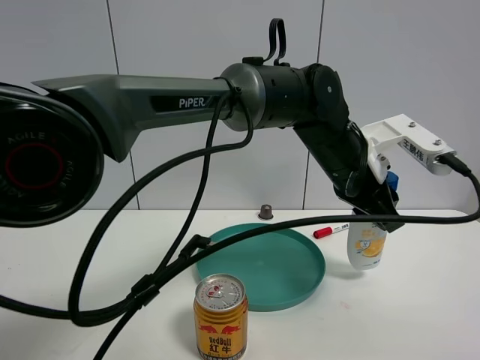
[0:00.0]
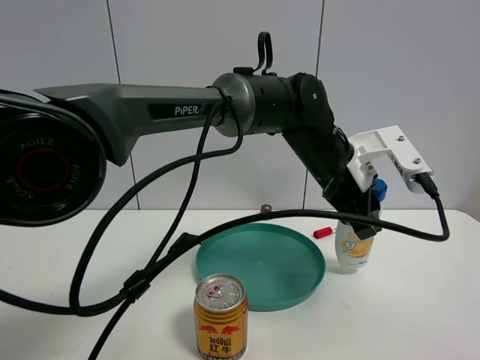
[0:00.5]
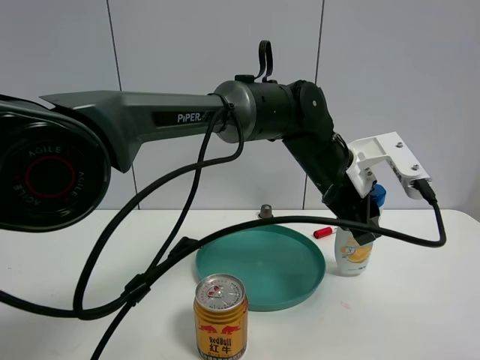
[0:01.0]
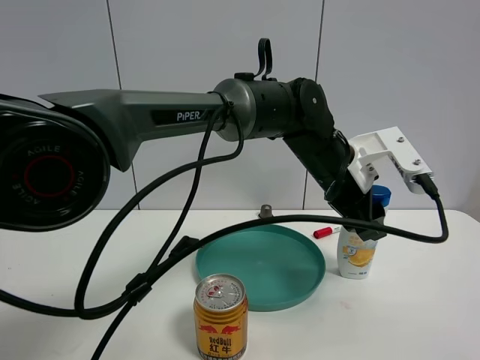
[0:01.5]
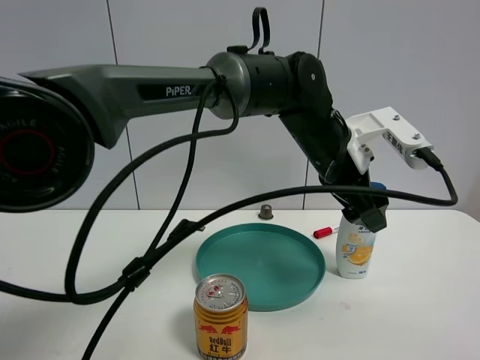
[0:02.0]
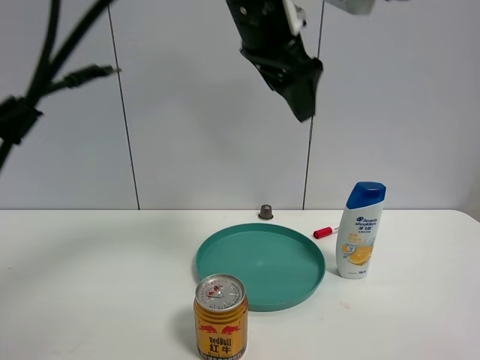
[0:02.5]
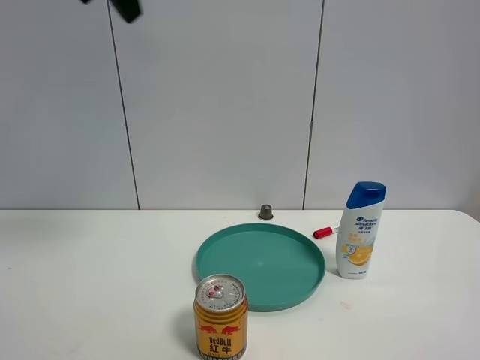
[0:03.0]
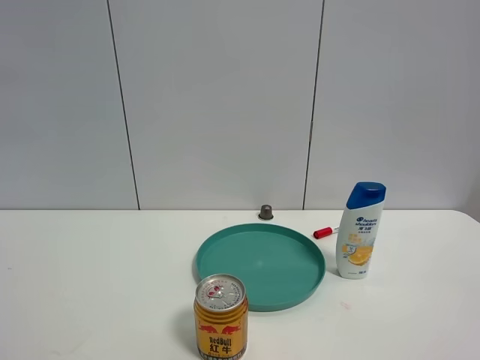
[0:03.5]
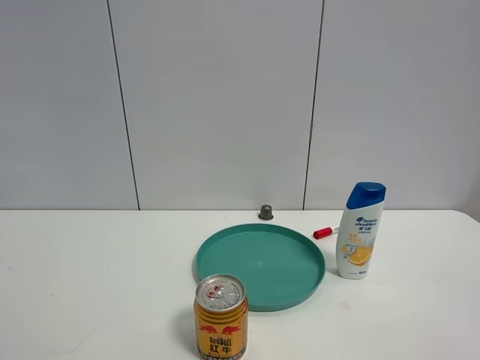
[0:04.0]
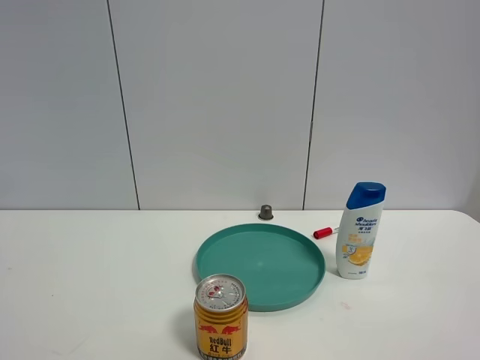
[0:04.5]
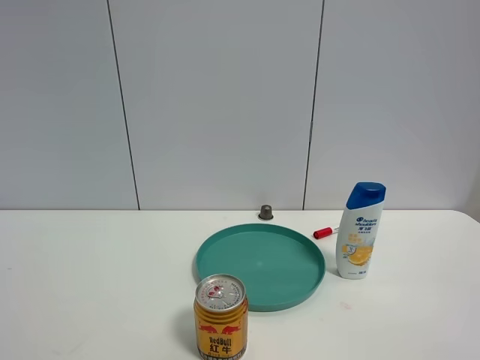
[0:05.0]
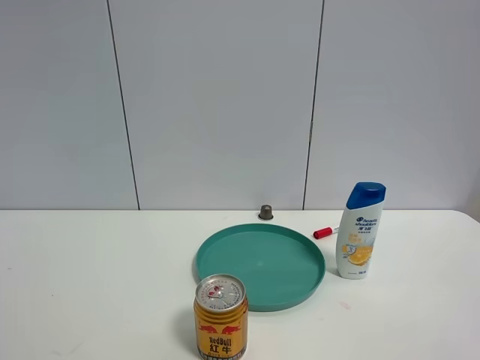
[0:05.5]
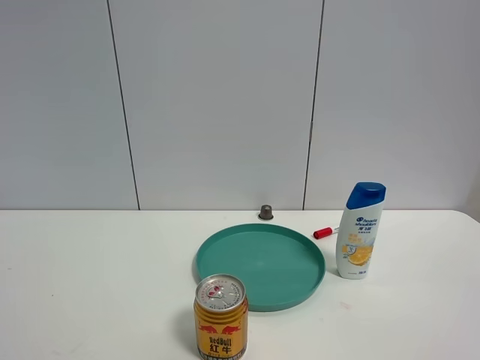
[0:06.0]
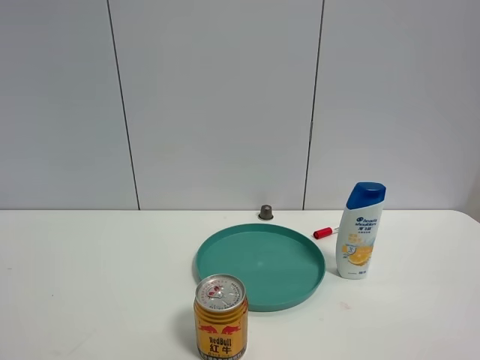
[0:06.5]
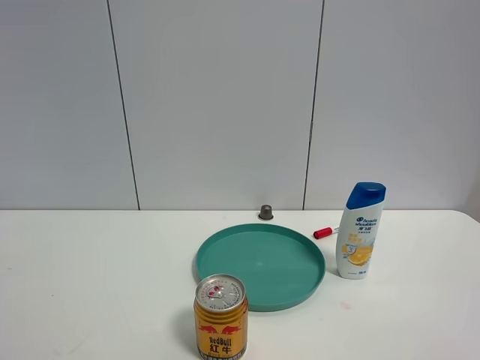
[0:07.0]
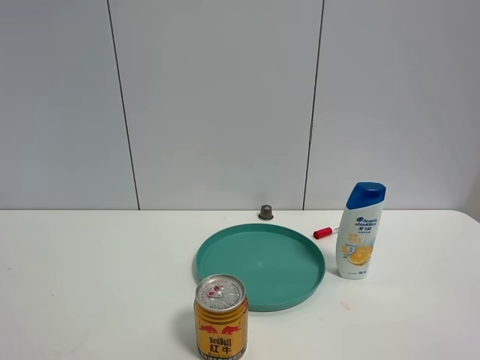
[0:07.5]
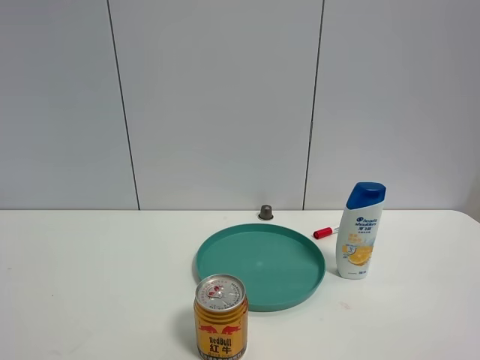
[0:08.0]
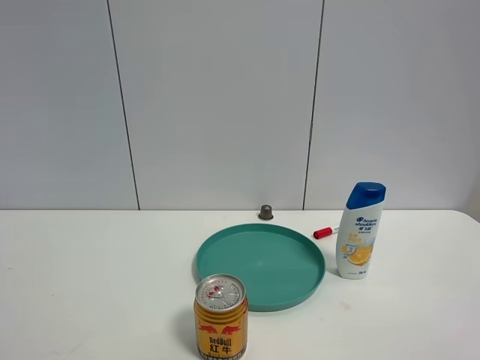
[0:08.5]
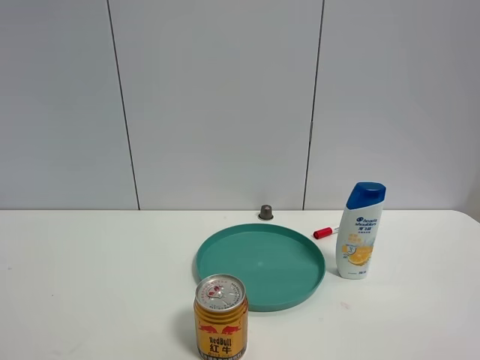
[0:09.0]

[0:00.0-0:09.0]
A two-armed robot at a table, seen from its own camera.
Task of the whole recording: the gripper move the object.
0:00.0 to 0:02.0: The left gripper opens.
0:02.0 to 0:04.5: The left gripper moves to the left and backward, about 60 cm.
0:07.0 to 0:09.0: Both grippers stay about where they are.

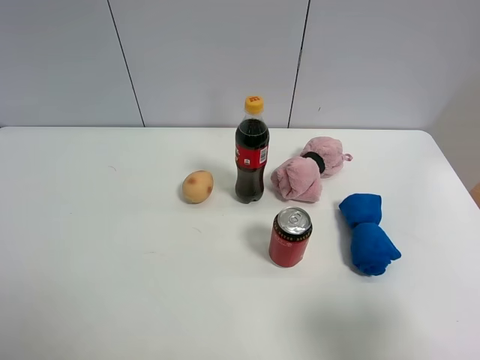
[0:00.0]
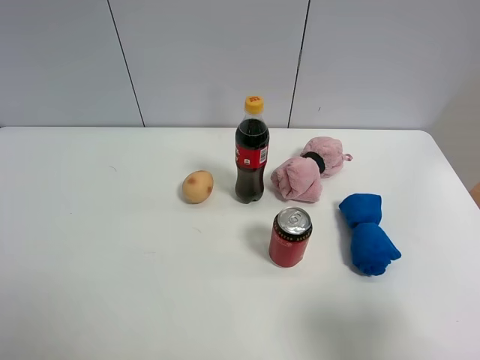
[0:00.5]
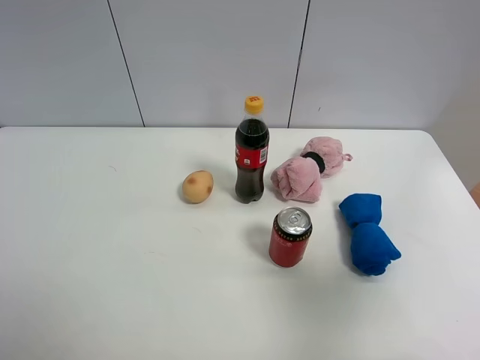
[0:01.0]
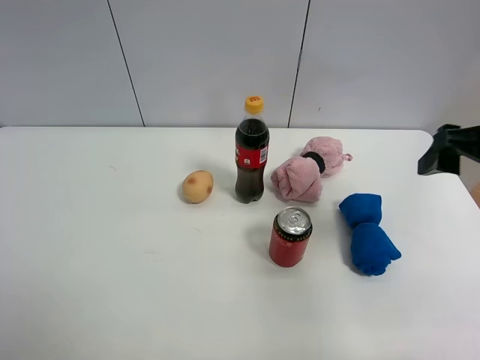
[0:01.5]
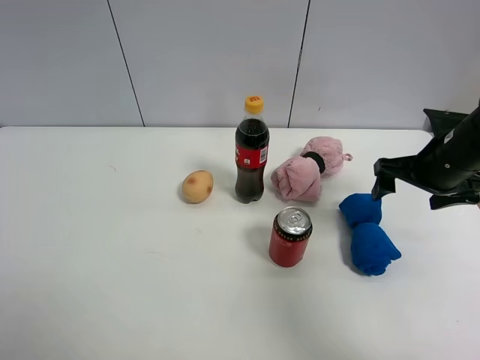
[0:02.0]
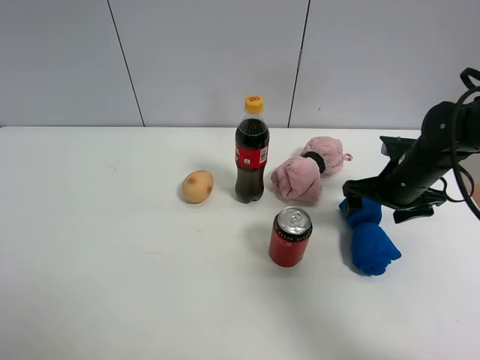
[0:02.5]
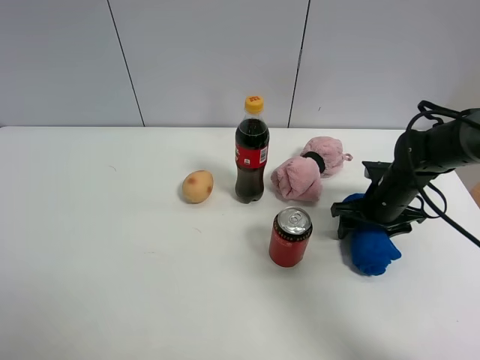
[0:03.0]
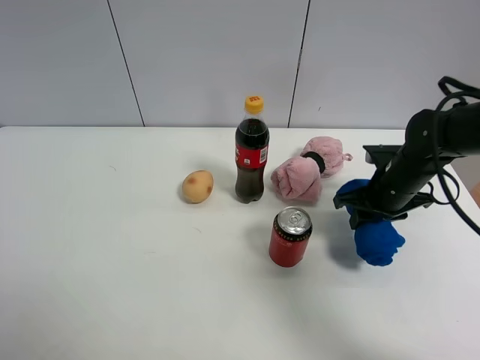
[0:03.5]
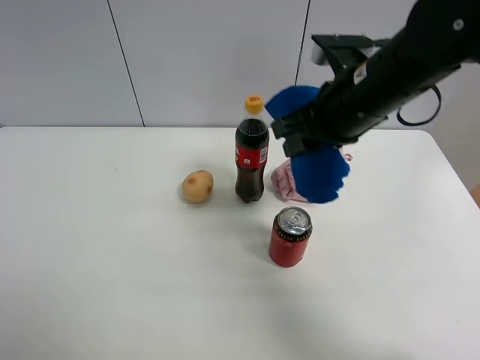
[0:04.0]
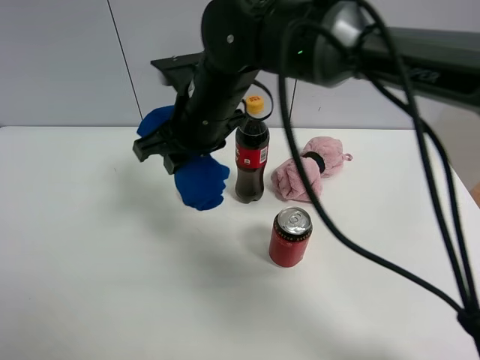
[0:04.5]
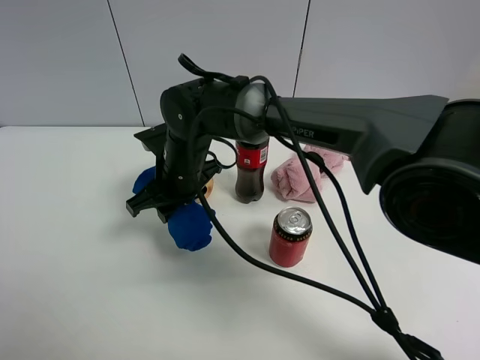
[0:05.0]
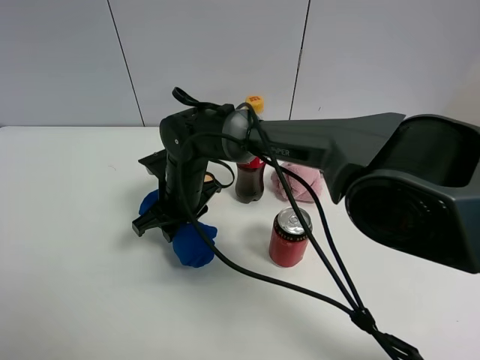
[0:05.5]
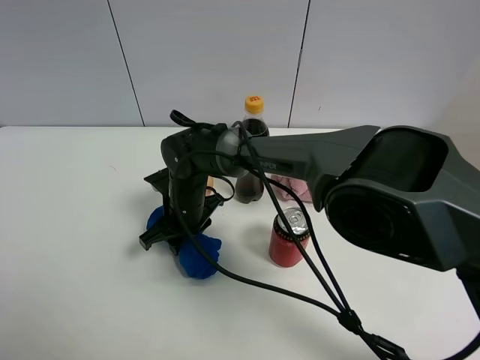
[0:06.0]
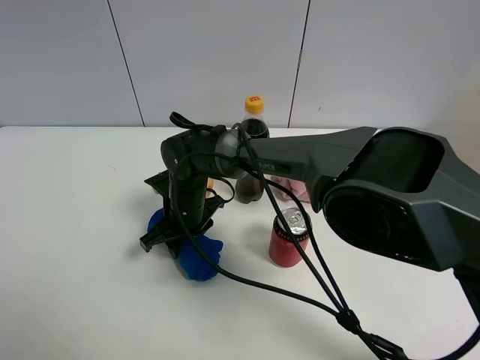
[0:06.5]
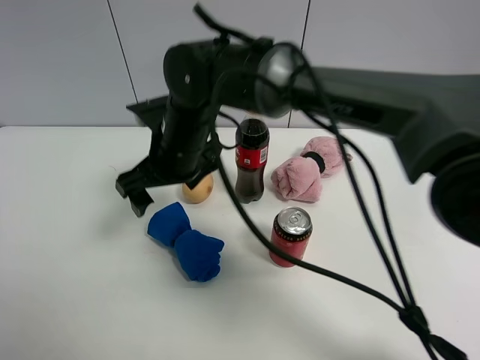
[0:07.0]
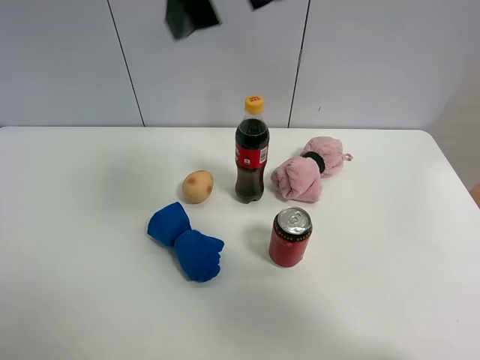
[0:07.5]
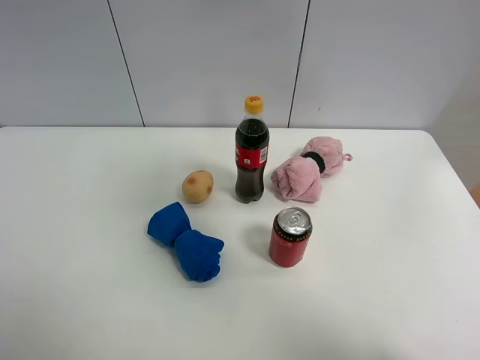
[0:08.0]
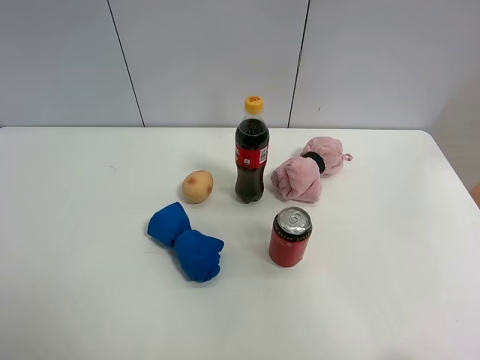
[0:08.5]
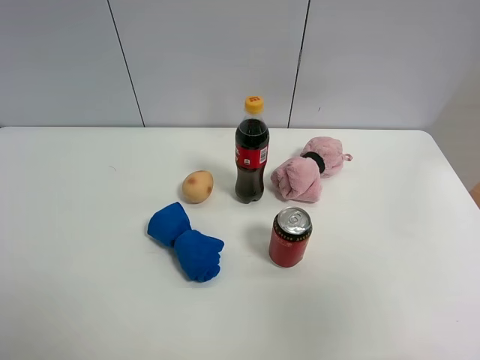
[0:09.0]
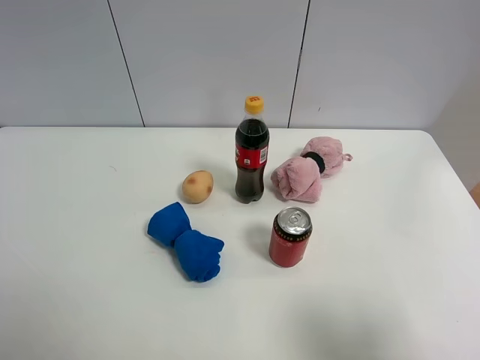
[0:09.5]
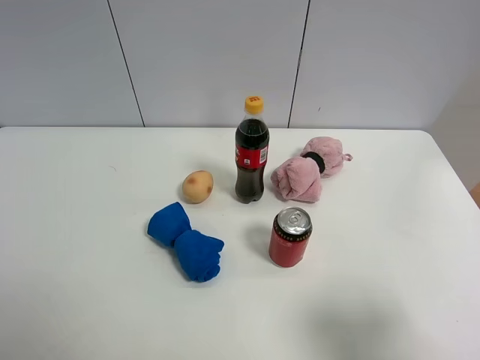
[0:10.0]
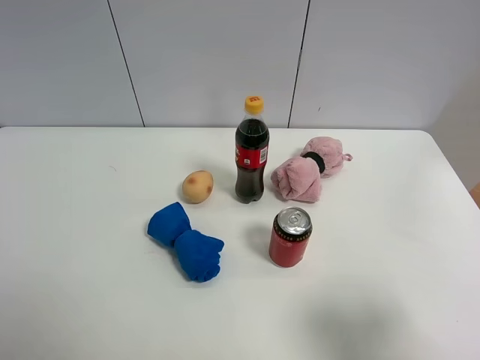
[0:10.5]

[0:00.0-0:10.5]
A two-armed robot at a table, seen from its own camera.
Task of the whole recording: the gripper move the object.
Step, 0:00.0 to 0:03.0: Grasp the blue towel with the right gripper.
Step, 0:03.5 to 0:07.0: Place the blue towel on the table with the right gripper.
0:00.0 to 0:02.0: The right gripper shifts roughly 30 cm forward.
0:02.0 to 0:04.0: The right gripper goes approximately 20 cm to the left and upward, and closes its fingers.
0:04.0 to 0:06.5: The right gripper heads downward and to the left, covering some 30 cm.
0:06.5 to 0:08.5: The right gripper moves upward, to the right and backward, about 70 cm, and opens.
0:08.5 to 0:10.5: The right gripper shifts about 30 cm downward.
